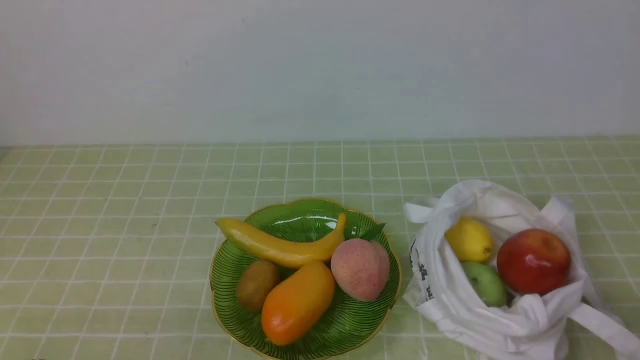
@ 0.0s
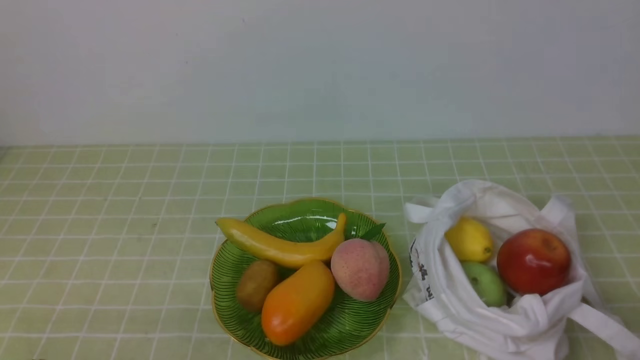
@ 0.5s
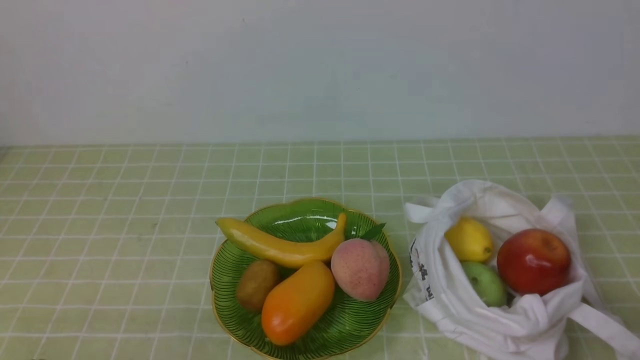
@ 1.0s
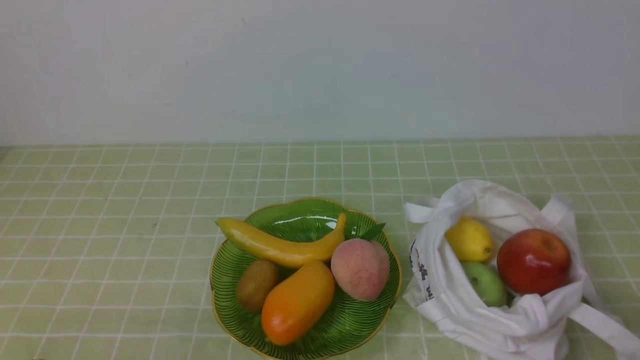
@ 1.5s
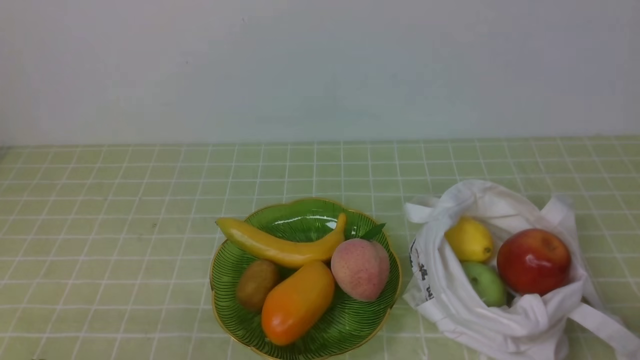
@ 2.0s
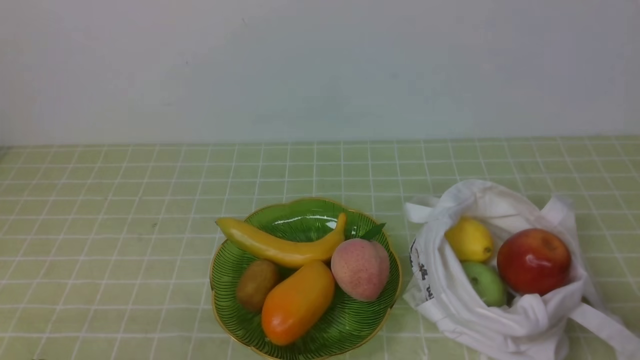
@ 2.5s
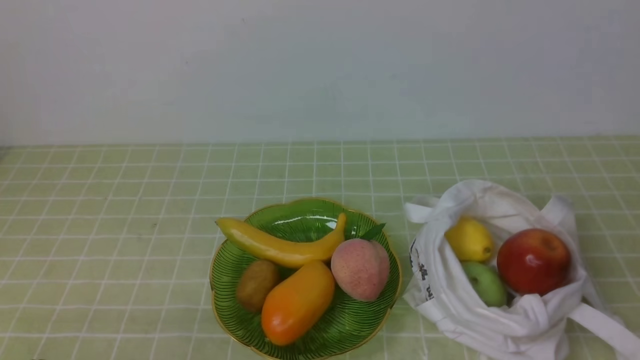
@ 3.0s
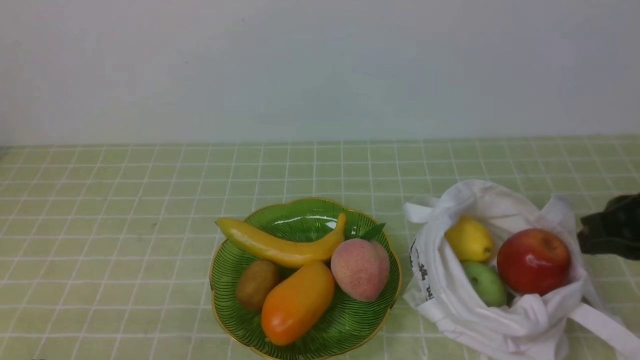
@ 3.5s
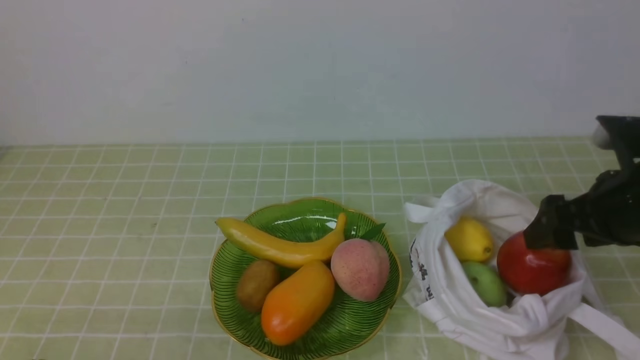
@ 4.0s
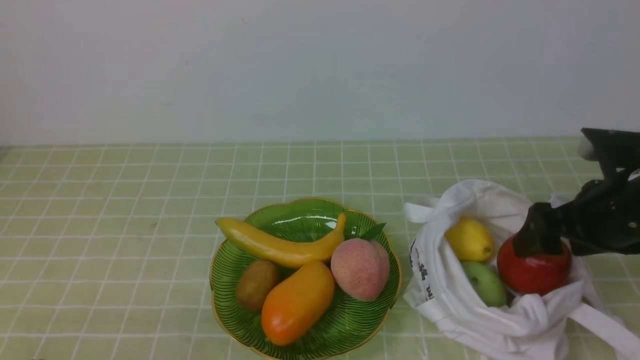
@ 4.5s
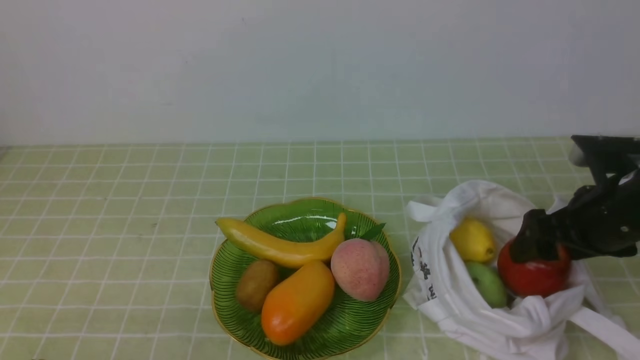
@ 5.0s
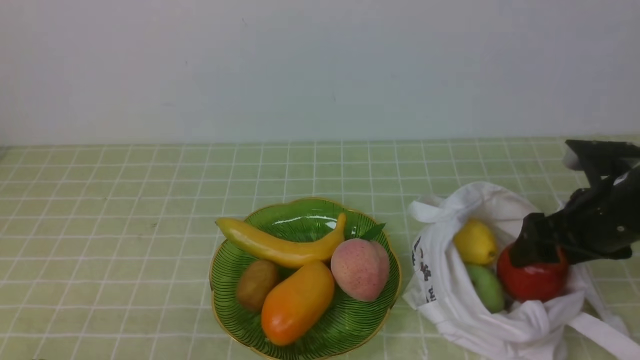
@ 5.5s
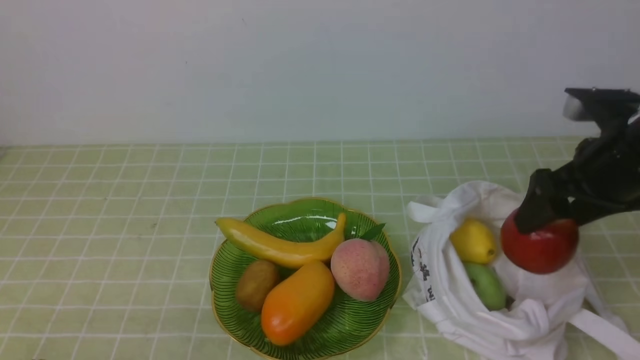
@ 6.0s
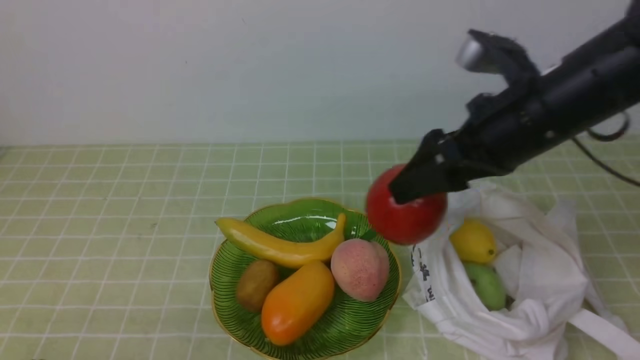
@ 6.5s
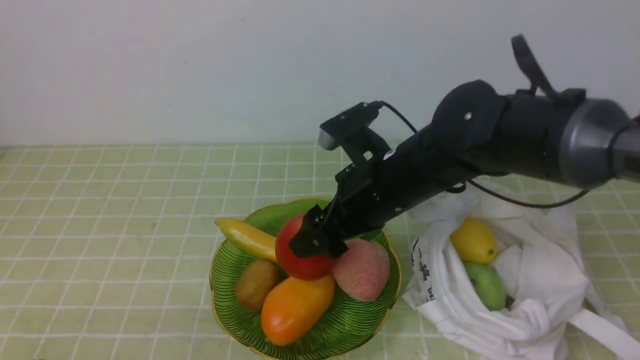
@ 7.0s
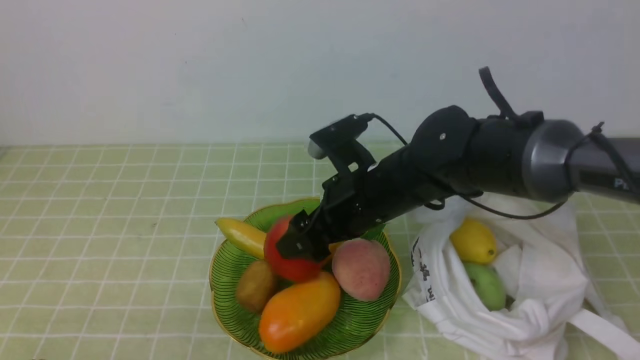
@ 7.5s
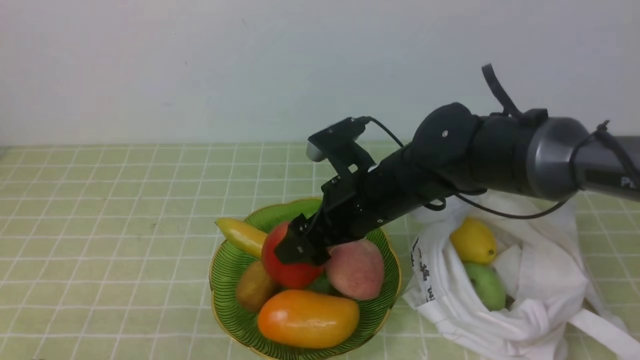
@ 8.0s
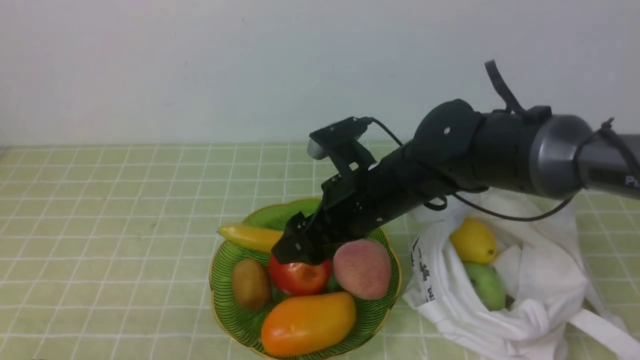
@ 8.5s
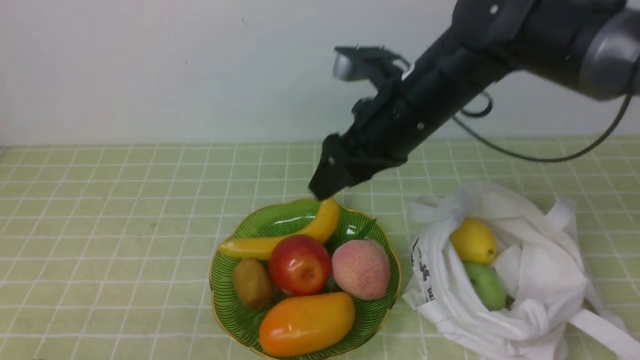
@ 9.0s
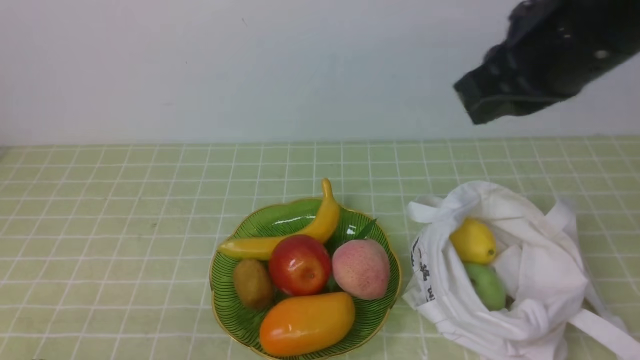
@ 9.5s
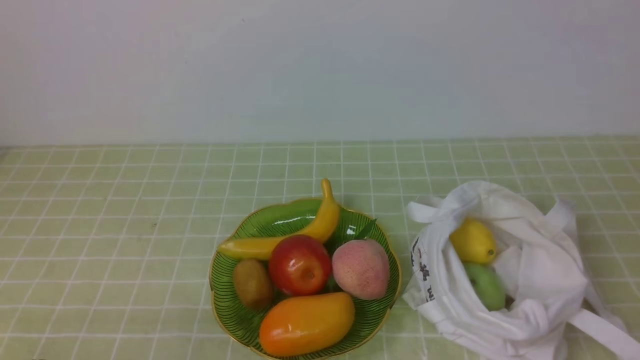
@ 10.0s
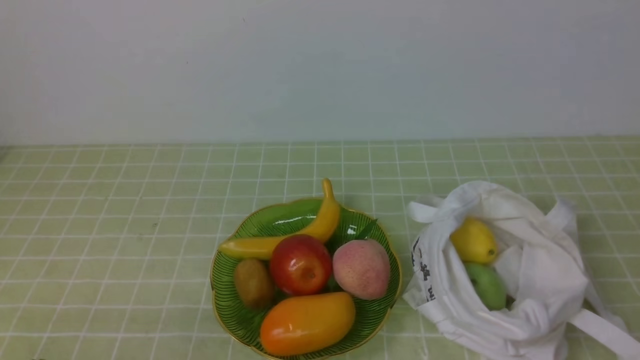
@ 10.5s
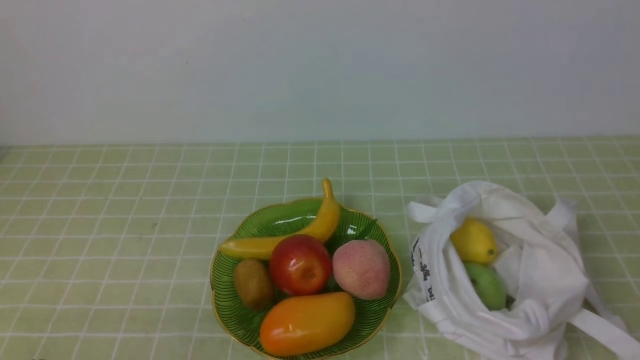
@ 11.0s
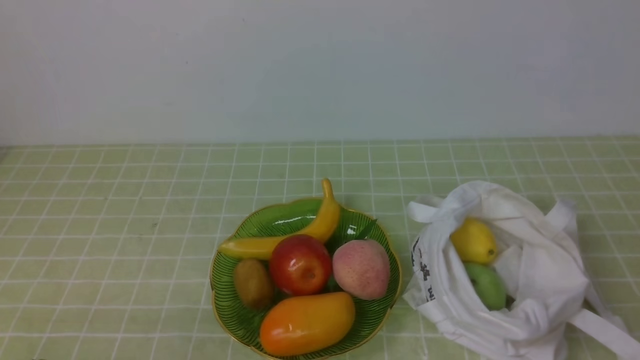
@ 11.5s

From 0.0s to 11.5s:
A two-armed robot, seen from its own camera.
Step, from 0.0s to 5.0s: use the right arm to grab an apple from the bag.
Step, from 5.5s to 8.0s: use the right arm to put the apple into the empty plate on the left.
From 2.0s to 4.0s: The right gripper is displaced forward by about 20 cm, and opens up.
From 4.0s to 6.0s: There are only small adjustments of the grippers.
From 6.0s to 7.5s: The right gripper moves to the left, some 20 cm.
From 7.5s to 9.5s: The right gripper goes approximately 25 cm upward and to the right, and closes its fingers.
From 9.5s to 11.5s: The right gripper goes approximately 25 cm backward, downward and to the right.

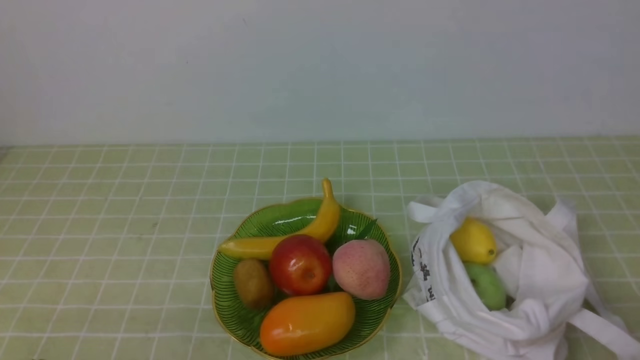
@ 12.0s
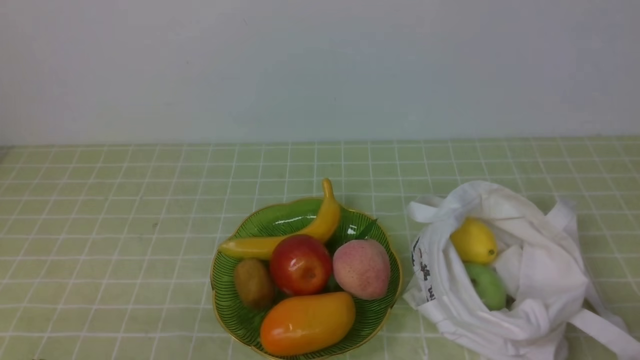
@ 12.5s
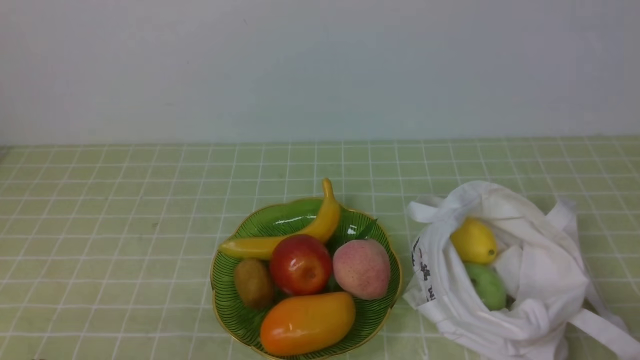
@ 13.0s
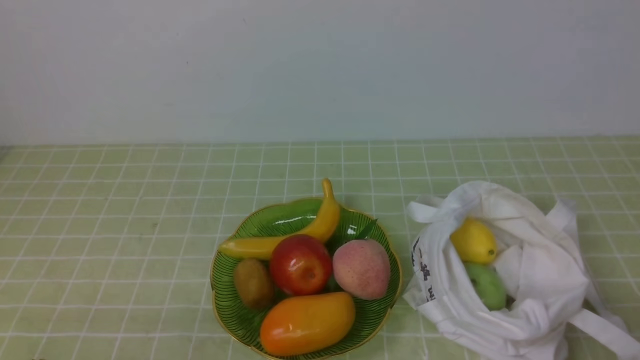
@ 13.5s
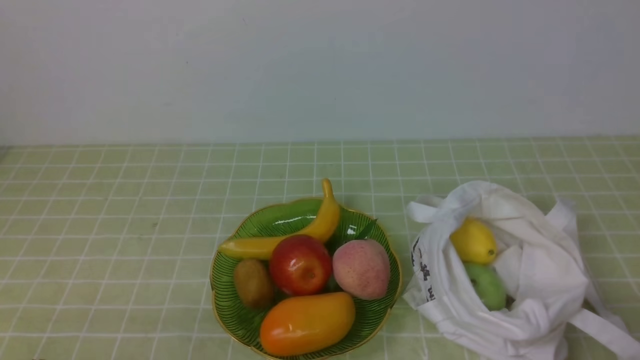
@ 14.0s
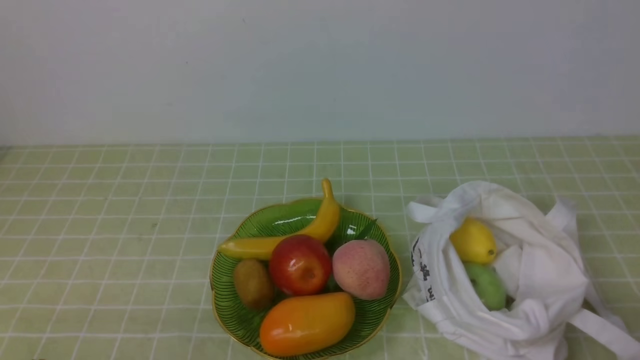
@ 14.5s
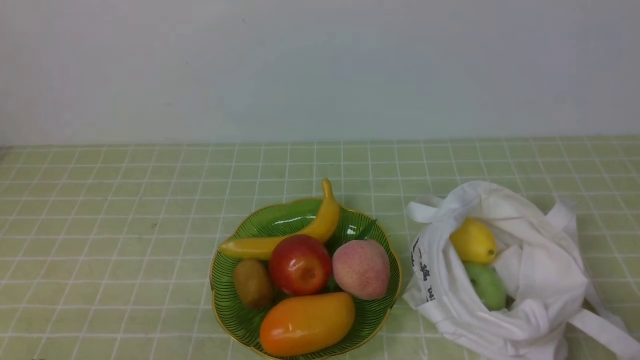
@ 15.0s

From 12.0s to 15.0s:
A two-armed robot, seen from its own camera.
From 13.5s to 15.0s: Neither gripper changes place.
